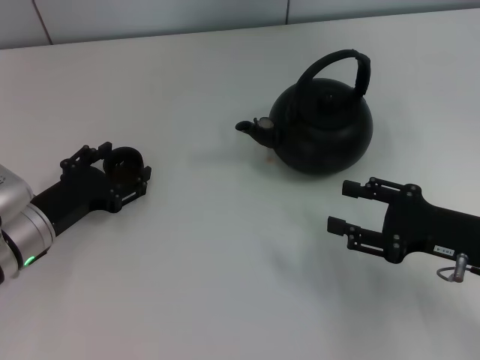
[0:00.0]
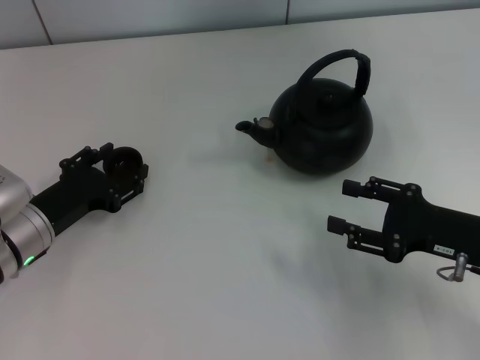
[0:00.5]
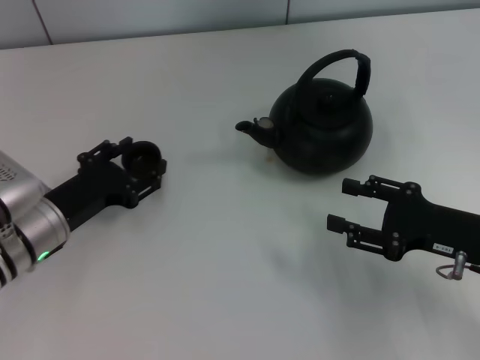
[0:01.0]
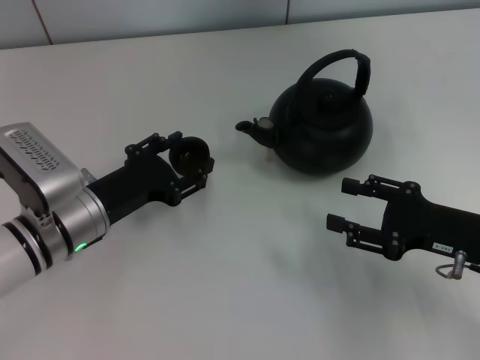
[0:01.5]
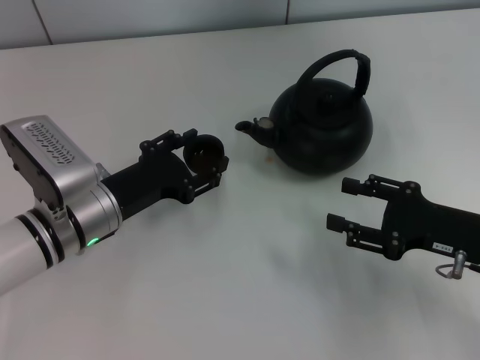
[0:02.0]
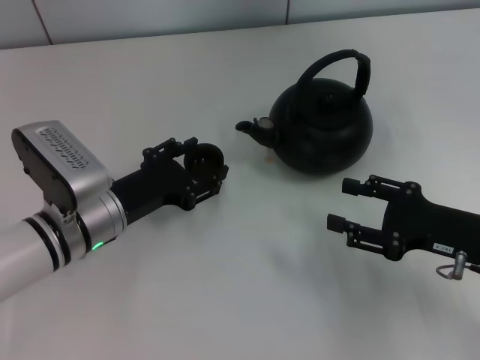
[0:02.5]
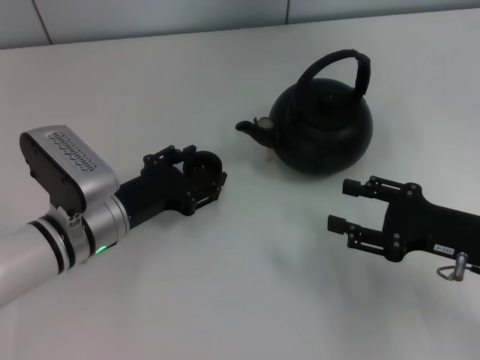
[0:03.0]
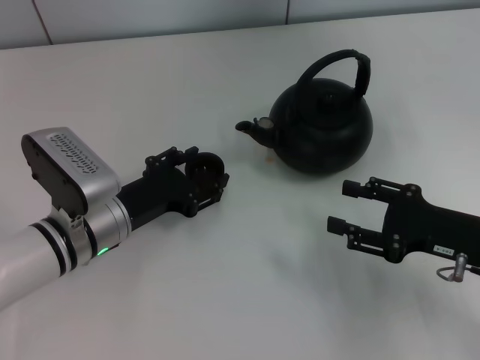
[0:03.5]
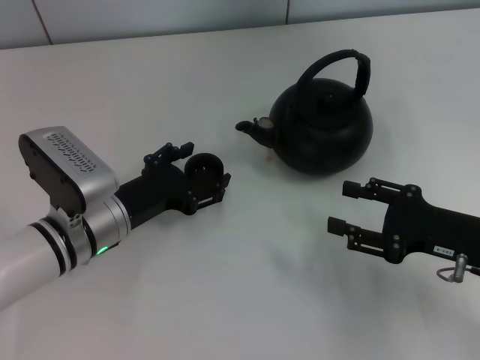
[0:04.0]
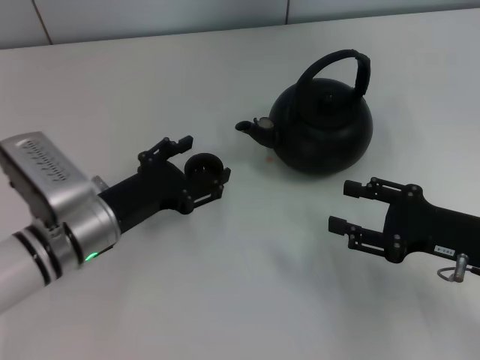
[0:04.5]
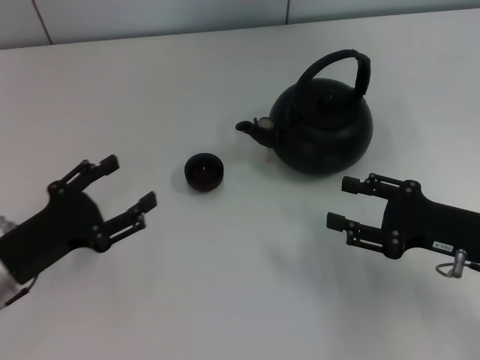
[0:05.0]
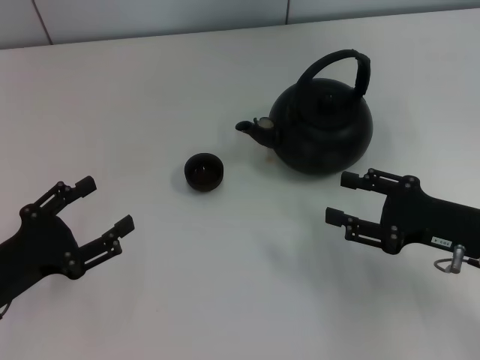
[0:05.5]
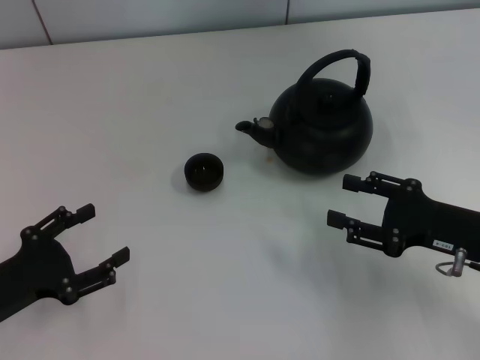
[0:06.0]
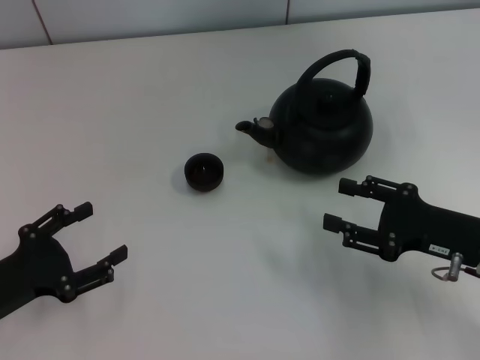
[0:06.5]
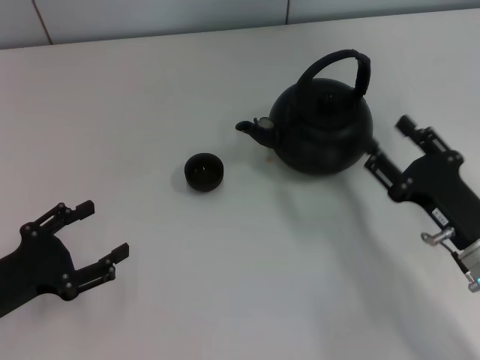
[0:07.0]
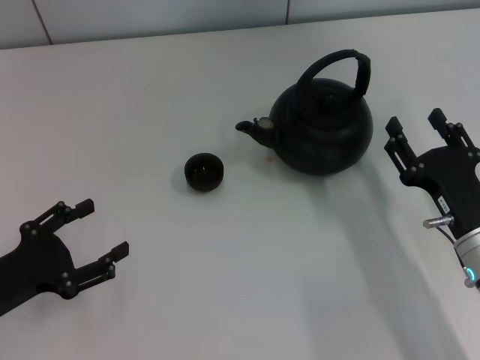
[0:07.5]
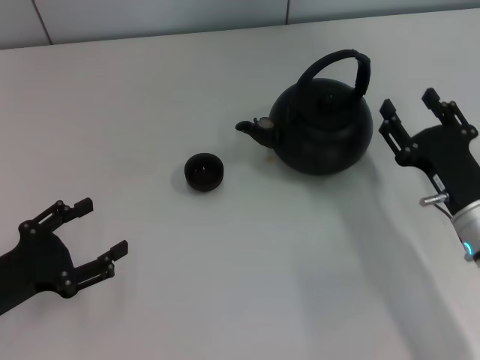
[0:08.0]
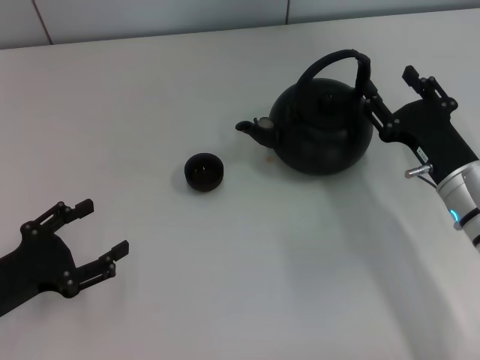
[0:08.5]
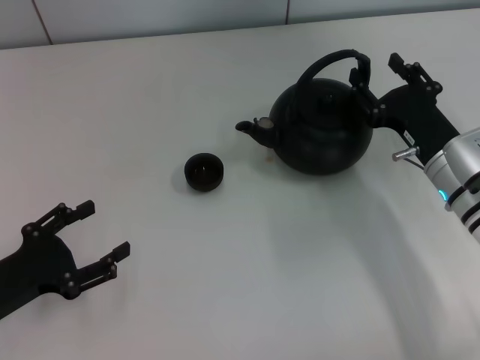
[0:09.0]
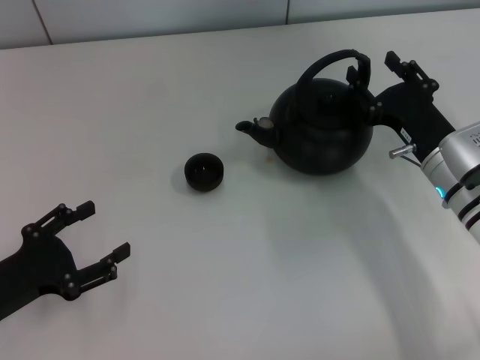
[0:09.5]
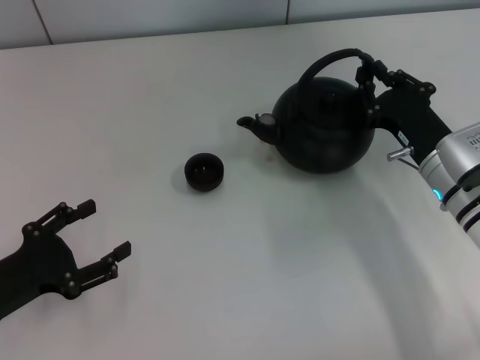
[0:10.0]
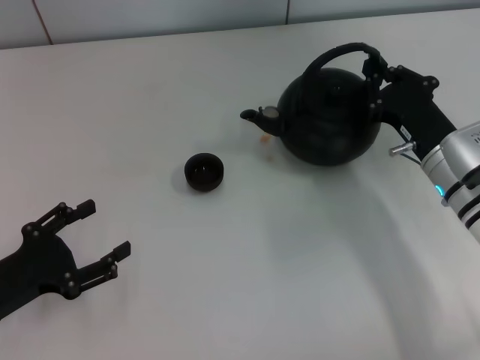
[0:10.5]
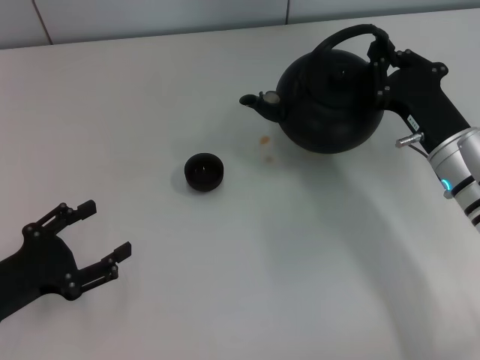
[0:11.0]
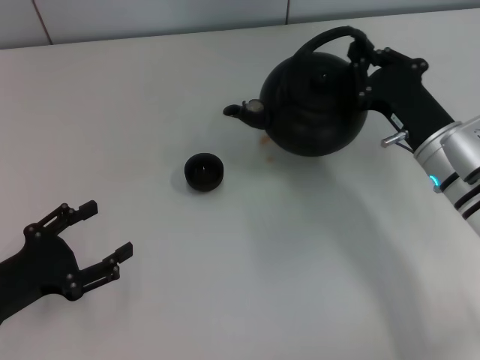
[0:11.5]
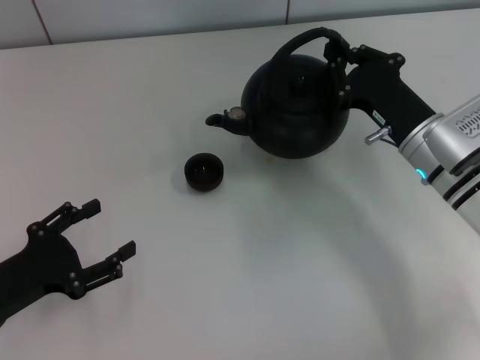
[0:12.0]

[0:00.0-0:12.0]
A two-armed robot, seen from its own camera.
Task of the whole recording: Grasp the handle of the teapot with one hand and pour tea into the teacup.
Step, 0:01.0 to 0:05.5: Place the teacup in the center of view with the left gripper.
Step, 0:06.0 to 0:10.5: Pick up the teapot with the right gripper.
0:00.0 to 0:02.0: The left gripper goes roughly 5 cm to the right, and closes.
0:02.0 to 0:04.0: The left gripper opens up.
0:04.0 to 0:06.0: The left gripper travels to the left and backward by roughly 15 cm.
0:08.0 to 0:10.0: The right gripper travels forward by about 5 cm, and closes.
0:10.0 to 0:12.0: The grippers move only a little.

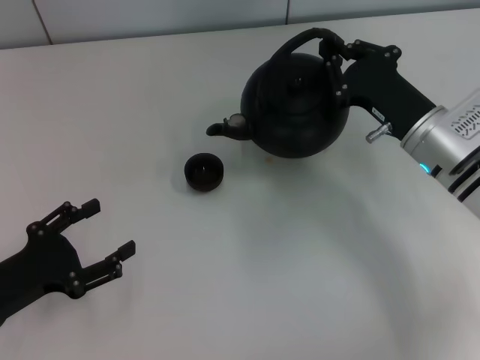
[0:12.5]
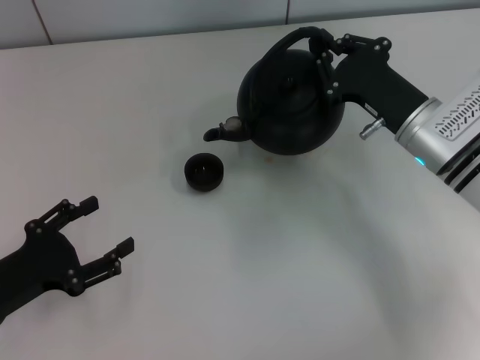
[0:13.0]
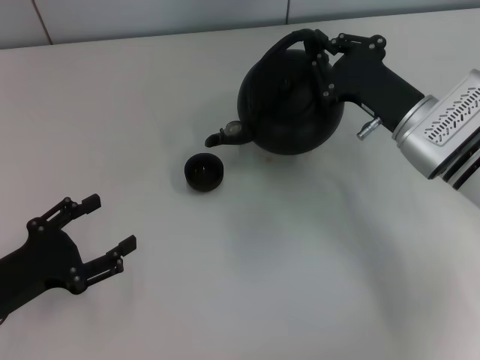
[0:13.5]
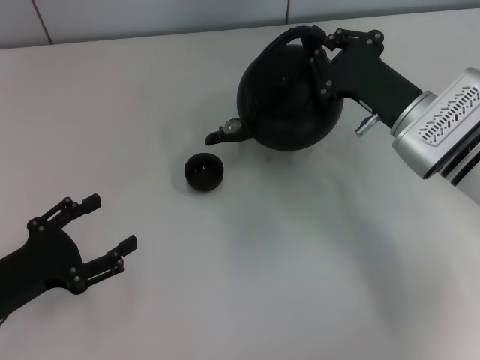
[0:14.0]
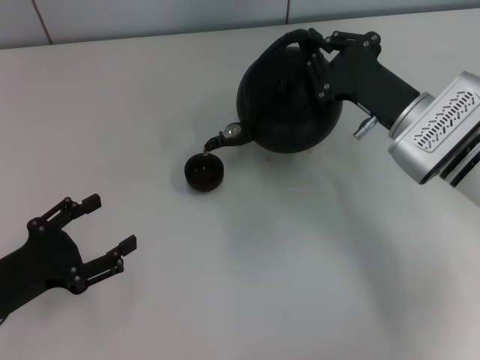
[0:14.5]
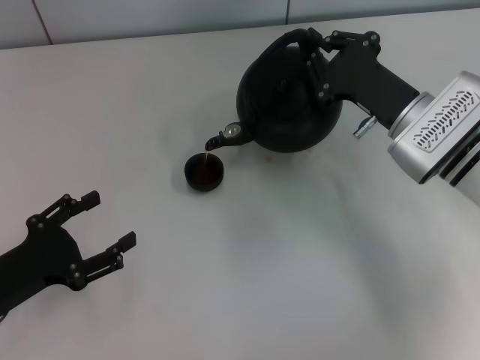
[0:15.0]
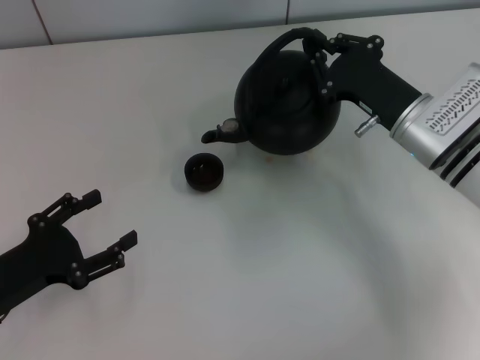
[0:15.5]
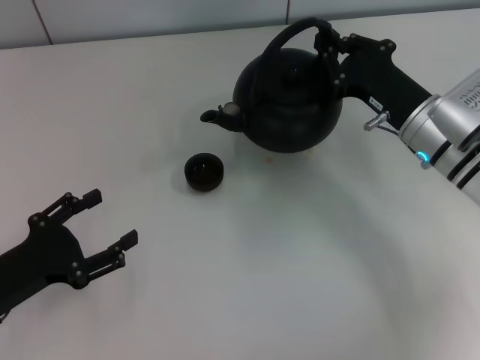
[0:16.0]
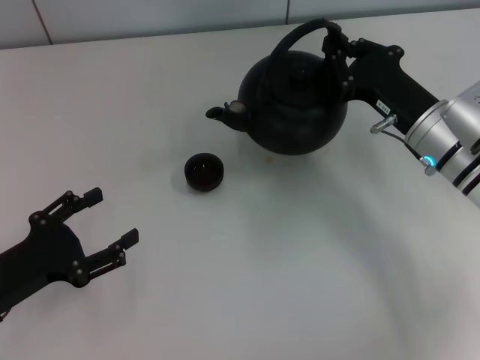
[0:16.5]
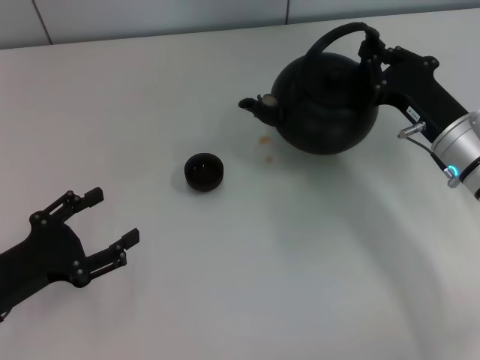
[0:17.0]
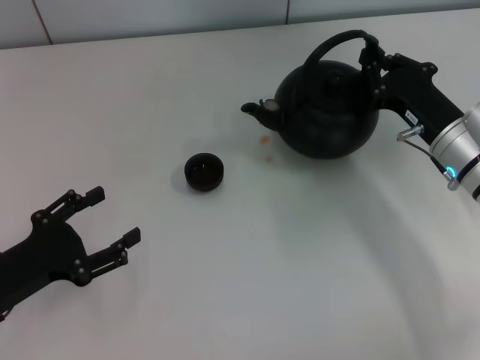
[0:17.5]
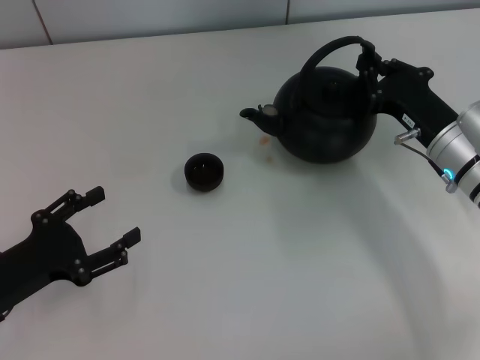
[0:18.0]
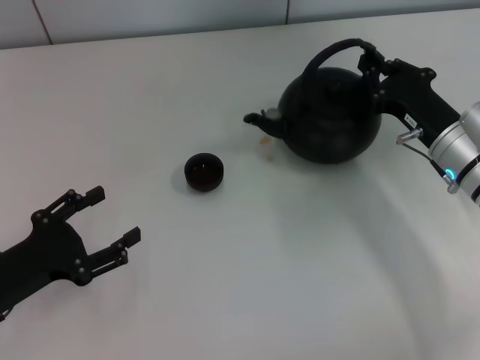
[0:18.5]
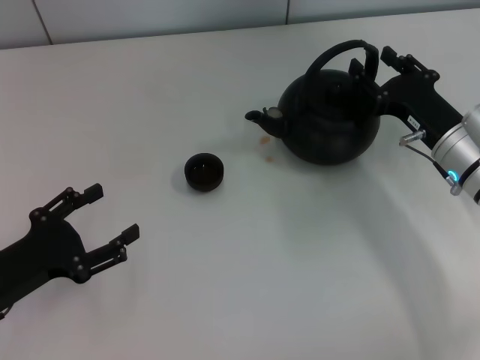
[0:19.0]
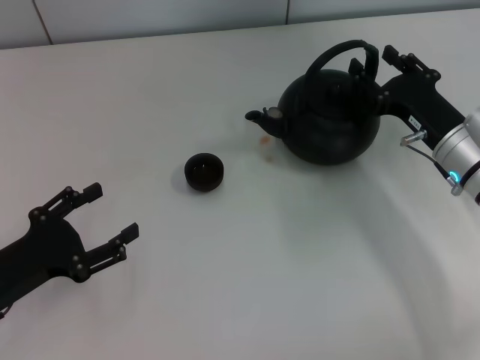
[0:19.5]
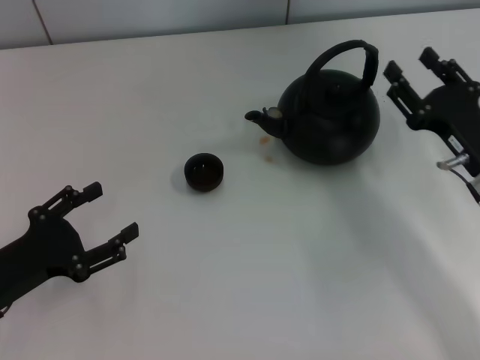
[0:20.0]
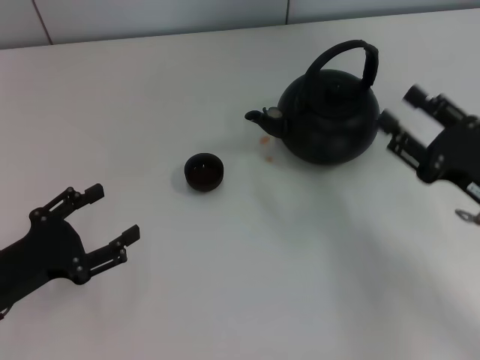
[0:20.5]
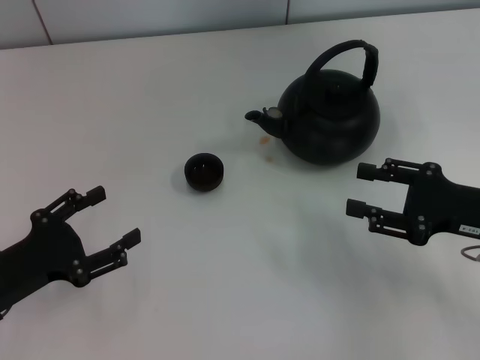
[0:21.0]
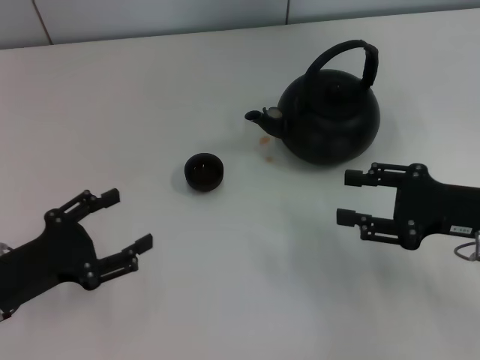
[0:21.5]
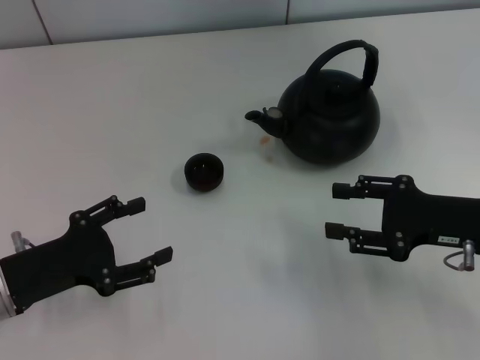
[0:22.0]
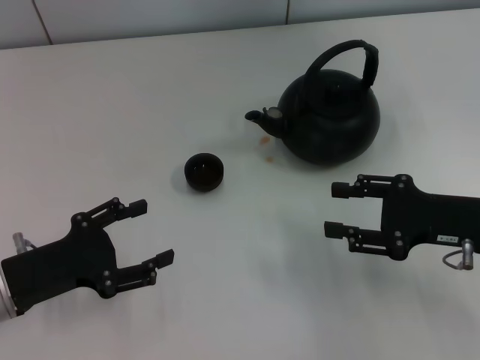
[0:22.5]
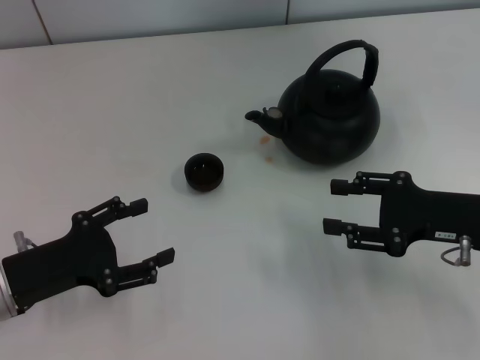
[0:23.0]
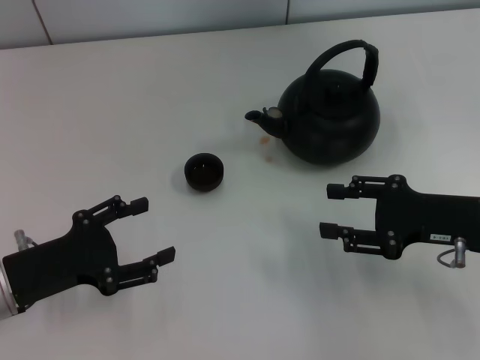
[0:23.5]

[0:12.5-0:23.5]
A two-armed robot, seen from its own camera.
Task of the whole recording: Grasp the handle of the teapot with one hand and pour tea into the teacup.
Step, 0:16.5 to 0:20.0: Put down the teapot with the right gripper.
0:12.5 to 0:14.5: The grippers move only a little.
0:16.0 to 0:18.0: The grippers move only a little.
0:18.0 to 0:20.0: The right gripper ends up roughly 5 cm from where it was, and opens up.
0:21.5 to 0:23.5: The grippers move only a little.
